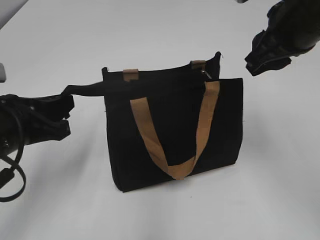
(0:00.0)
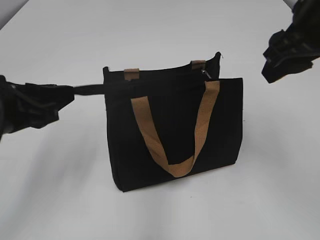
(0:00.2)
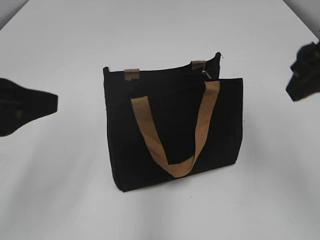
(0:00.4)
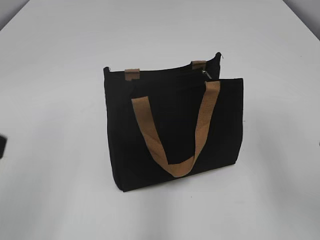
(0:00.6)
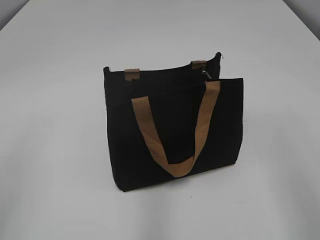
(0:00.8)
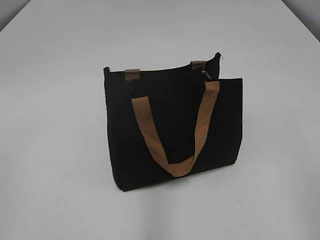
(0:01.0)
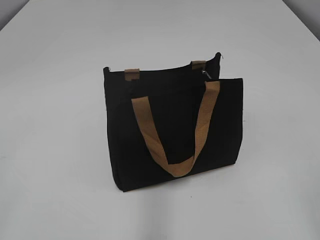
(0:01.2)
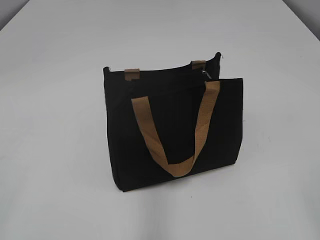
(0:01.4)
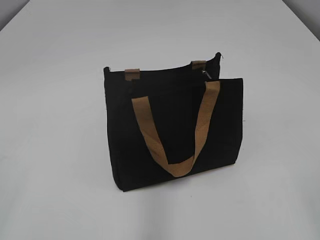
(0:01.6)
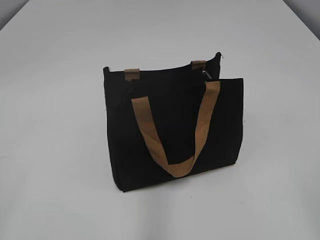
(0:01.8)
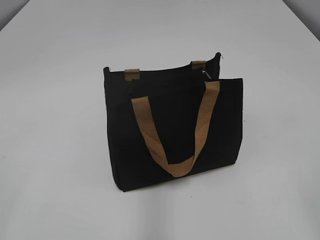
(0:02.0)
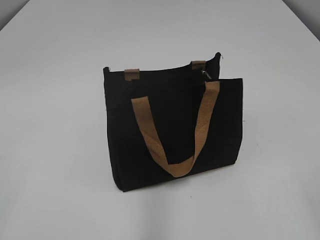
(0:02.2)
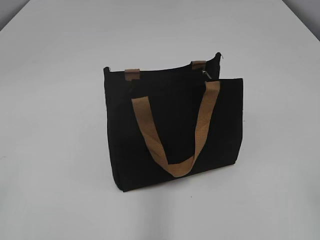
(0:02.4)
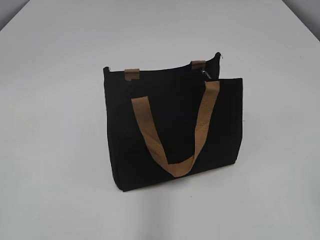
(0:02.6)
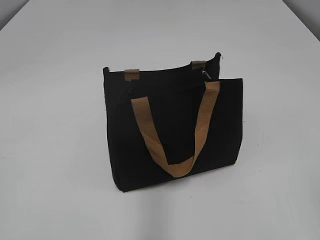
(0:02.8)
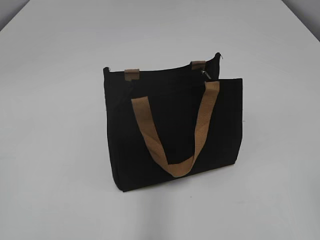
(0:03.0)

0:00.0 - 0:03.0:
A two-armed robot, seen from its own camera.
Step, 0:00.0 - 0:00.2: Grab the zipper with your left hand.
0:00.0 - 0:01.6: The right gripper is displaced backward by approximately 30 cm, and opens up. Meanwhile the left gripper goes about 25 cm backward, to the left and upward, and opens its fingers.

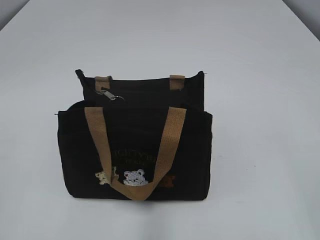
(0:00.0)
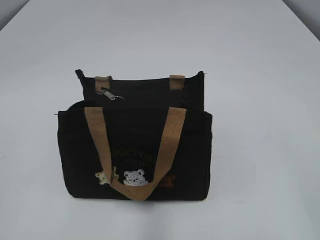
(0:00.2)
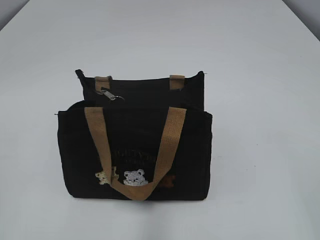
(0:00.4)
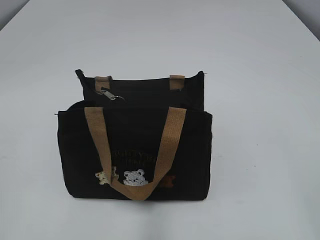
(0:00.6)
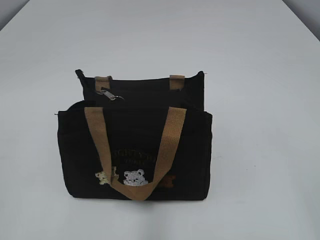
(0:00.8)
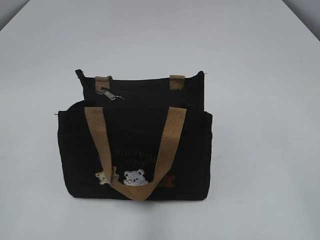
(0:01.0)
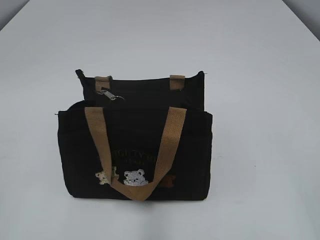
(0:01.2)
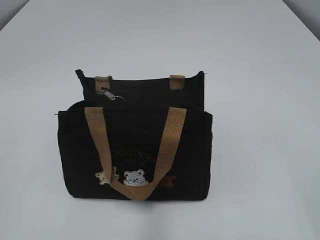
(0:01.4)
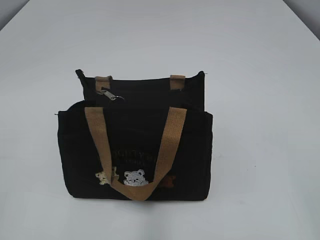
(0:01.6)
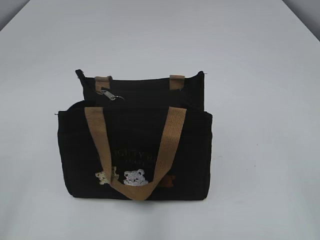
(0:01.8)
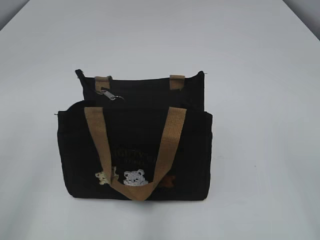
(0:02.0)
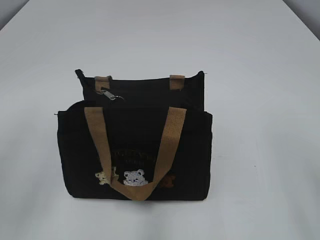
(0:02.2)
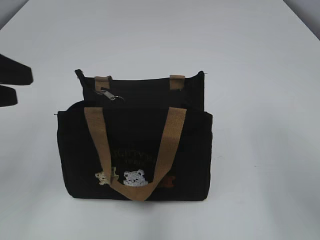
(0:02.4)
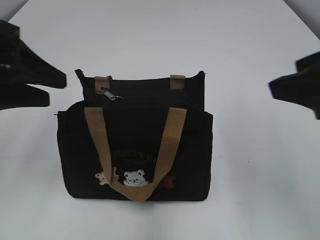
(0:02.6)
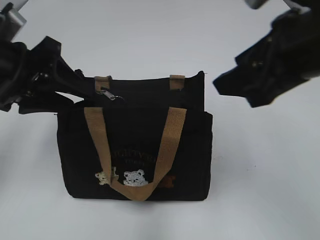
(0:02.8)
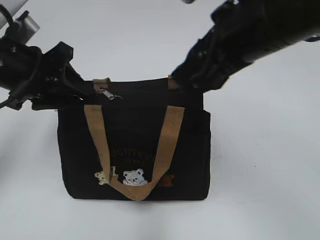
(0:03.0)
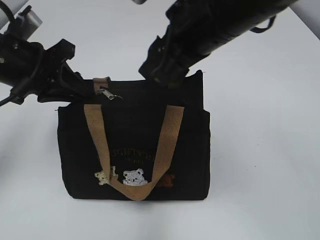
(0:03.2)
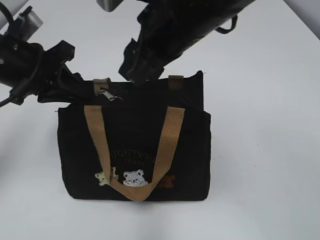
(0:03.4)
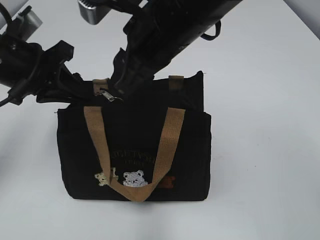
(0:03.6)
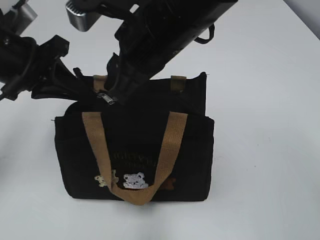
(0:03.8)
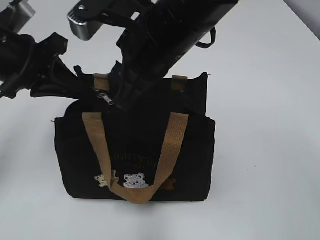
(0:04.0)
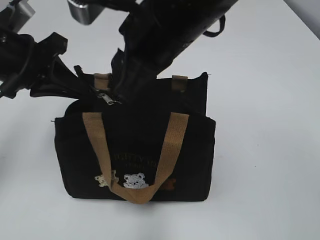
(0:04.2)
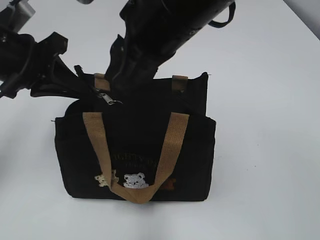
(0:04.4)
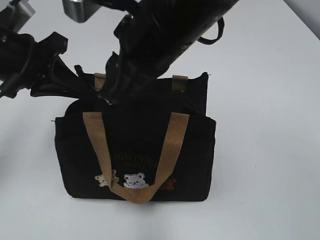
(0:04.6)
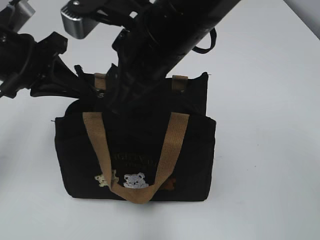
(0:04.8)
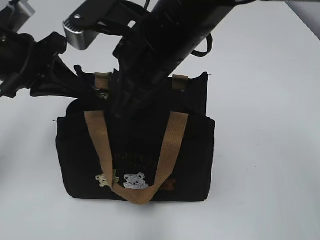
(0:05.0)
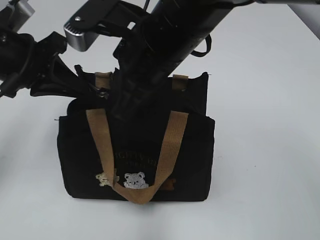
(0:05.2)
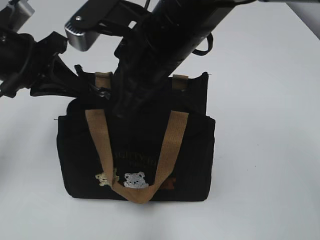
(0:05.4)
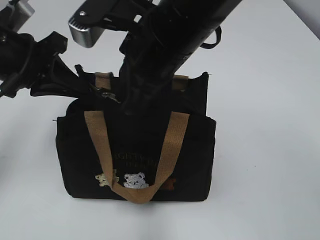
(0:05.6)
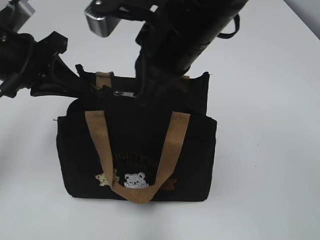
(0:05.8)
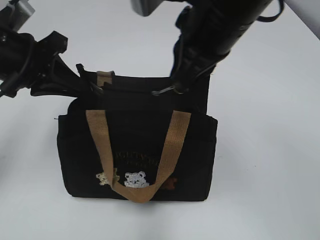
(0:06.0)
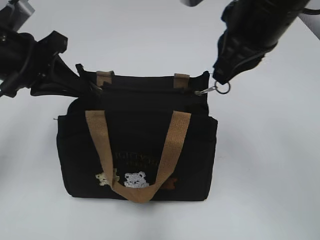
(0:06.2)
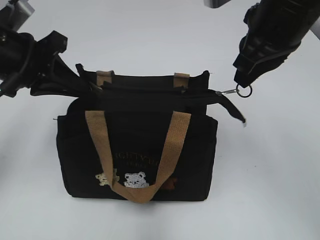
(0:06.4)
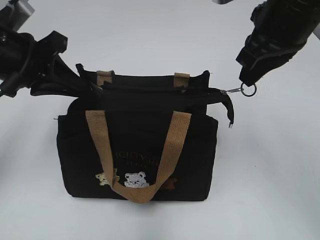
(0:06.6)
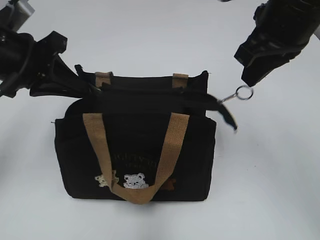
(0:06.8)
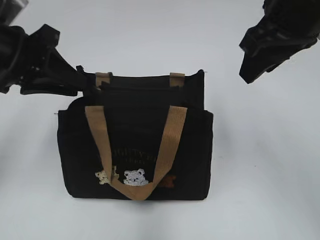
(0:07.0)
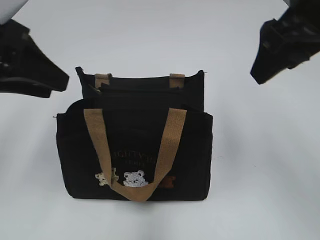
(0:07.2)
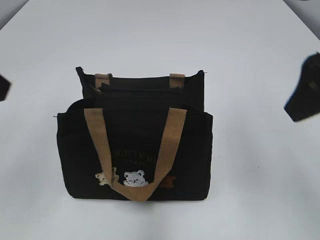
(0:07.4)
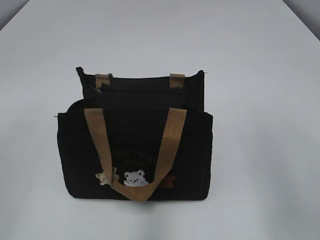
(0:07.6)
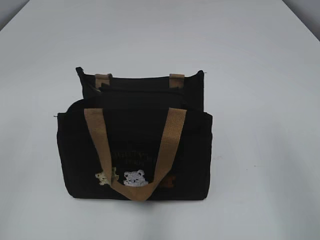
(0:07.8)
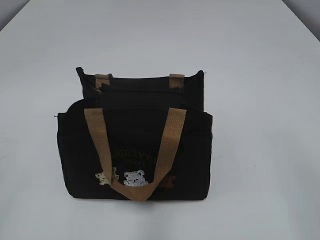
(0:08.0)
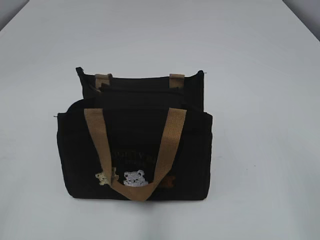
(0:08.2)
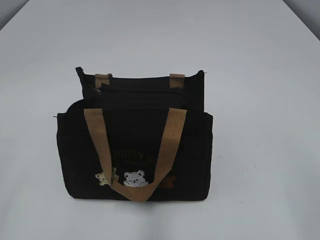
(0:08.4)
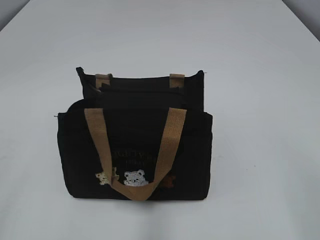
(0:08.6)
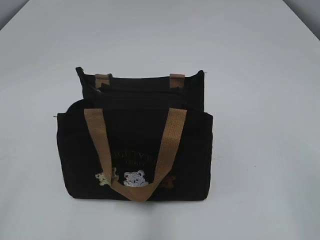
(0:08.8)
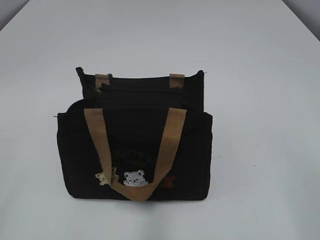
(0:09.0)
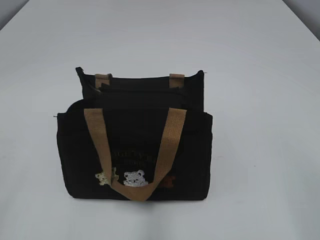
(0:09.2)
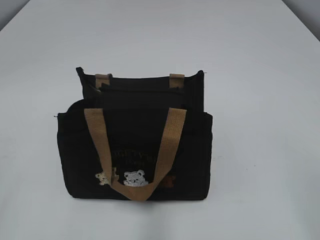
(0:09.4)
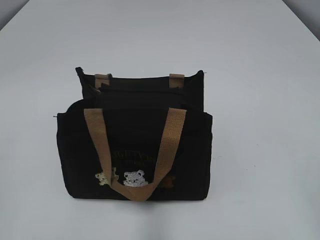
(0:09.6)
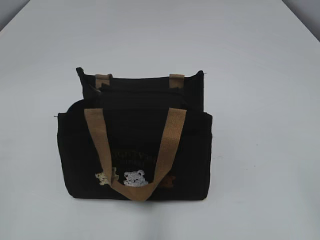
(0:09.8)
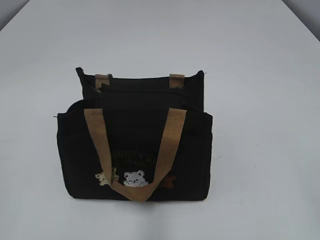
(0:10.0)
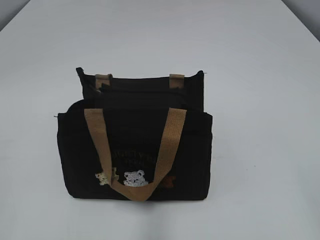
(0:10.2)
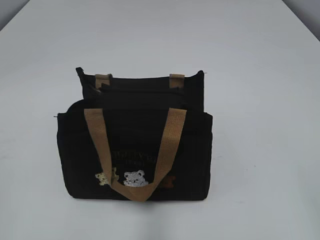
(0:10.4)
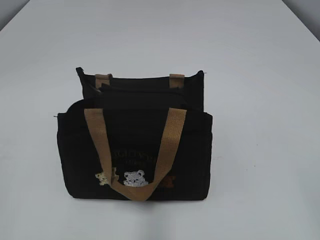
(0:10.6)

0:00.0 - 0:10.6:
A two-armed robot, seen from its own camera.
Step, 0:00.0 - 0:06.8: Pull open the zipper with your right hand.
0:01.6 - 0:03.0: The left gripper shifts approximately 30 cm forward. Meanwhile the right gripper is displaced forward and to the left by about 30 cm.
0:03.0 - 0:04.6: The left gripper closes. The right gripper moves to the left, approximately 10 cm.
0:04.6 - 0:06.0: The right gripper goes about 5 cm to the right, and closes its fingers.
0:06.0 - 0:07.6: The left gripper goes approximately 20 cm backward, upward and to the left, and opens. The right gripper heads to the right and backward, covering some 20 cm, and opens.
0:07.6 - 0:09.0: The right gripper moves backward, to the right and downward, some 15 cm.
